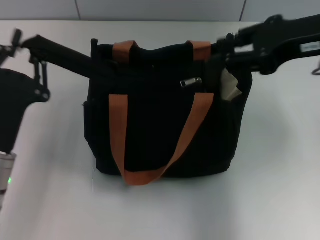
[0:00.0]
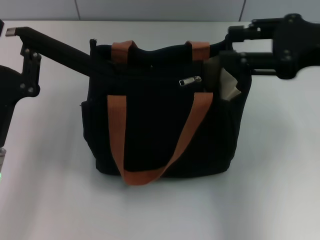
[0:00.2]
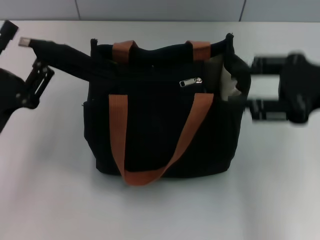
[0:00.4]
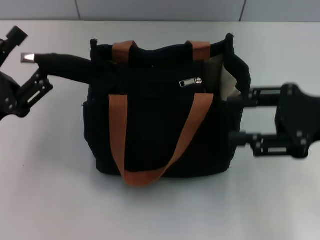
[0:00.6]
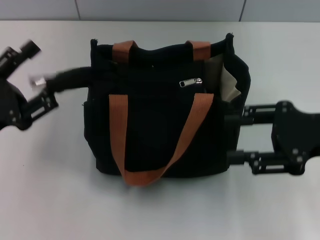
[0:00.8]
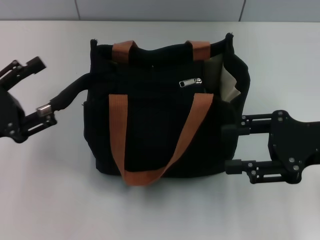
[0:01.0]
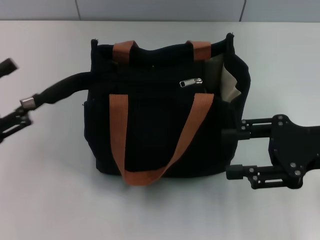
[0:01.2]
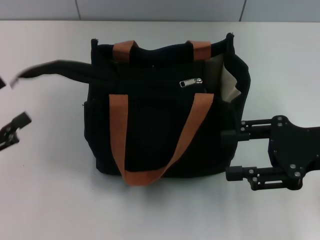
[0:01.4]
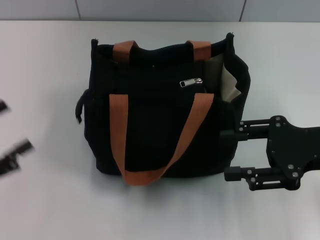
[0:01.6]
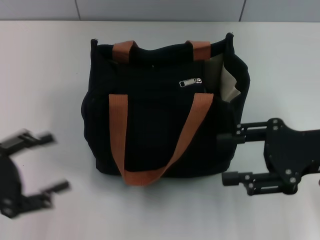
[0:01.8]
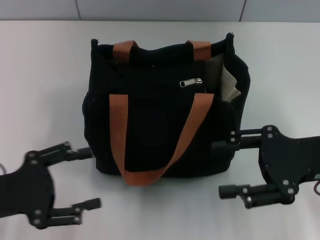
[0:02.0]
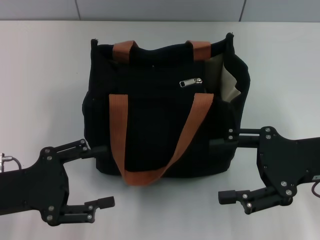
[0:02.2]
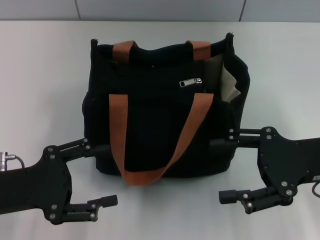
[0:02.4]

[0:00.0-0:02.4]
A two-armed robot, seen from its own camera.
Step, 0:00.0 to 0:01.0: Grab the zipper with your left hand.
0:00.0 to 0:01.2: The right gripper travels downward and backward by roughly 15 cm, and opens. The left gripper heads to the left, covering about 10 cm, and opens its fingers.
0:01.2 to 0:02.4: The left gripper moves to the right, roughly 5 cm.
